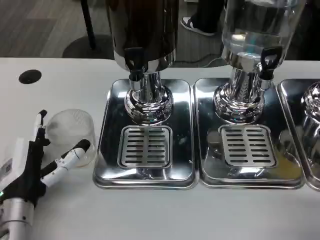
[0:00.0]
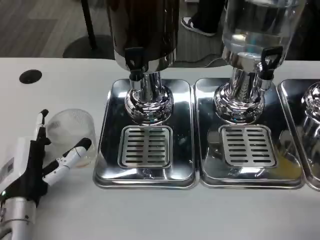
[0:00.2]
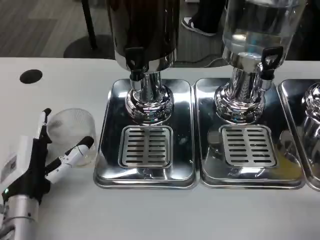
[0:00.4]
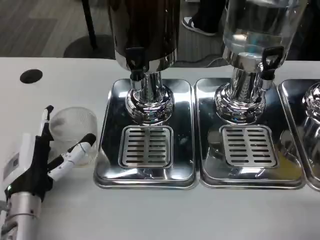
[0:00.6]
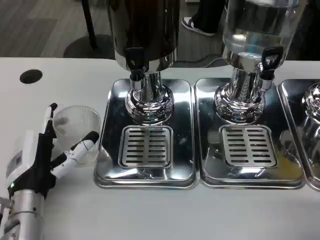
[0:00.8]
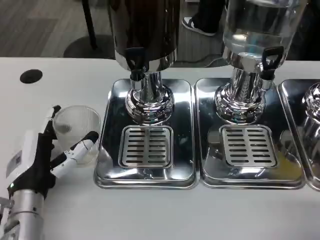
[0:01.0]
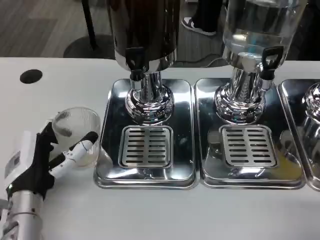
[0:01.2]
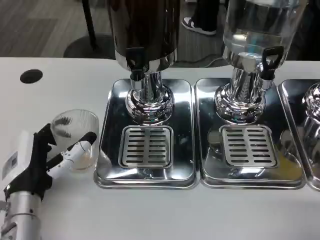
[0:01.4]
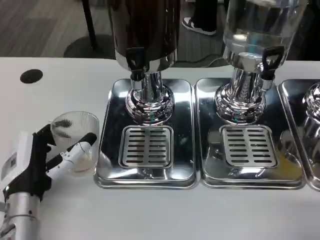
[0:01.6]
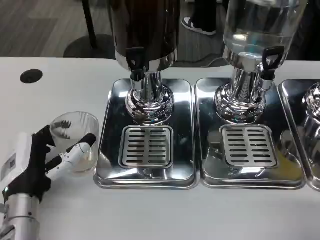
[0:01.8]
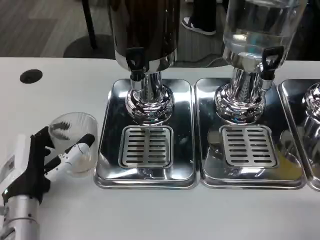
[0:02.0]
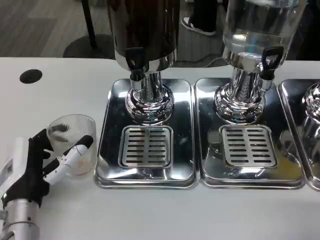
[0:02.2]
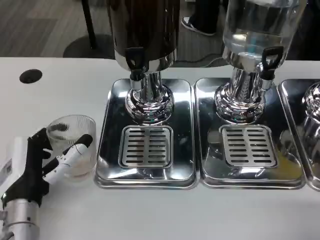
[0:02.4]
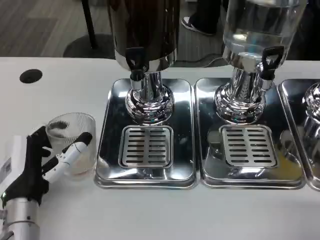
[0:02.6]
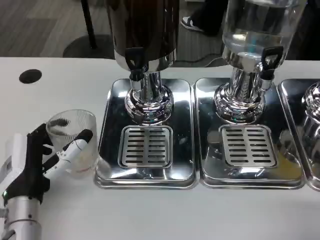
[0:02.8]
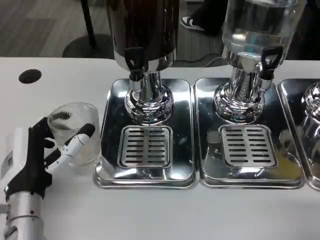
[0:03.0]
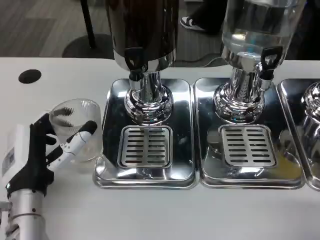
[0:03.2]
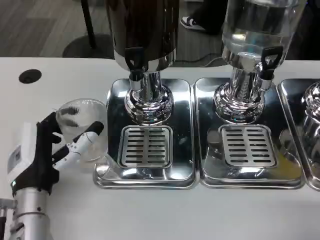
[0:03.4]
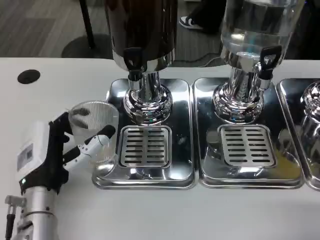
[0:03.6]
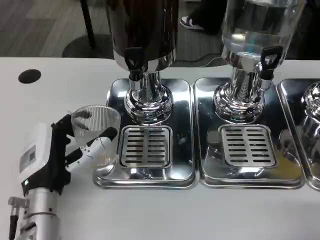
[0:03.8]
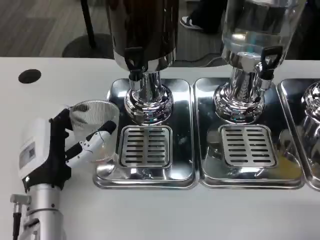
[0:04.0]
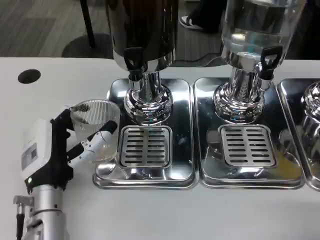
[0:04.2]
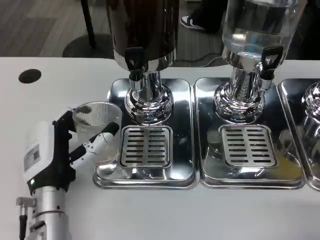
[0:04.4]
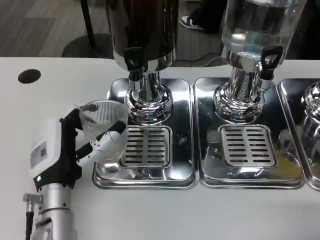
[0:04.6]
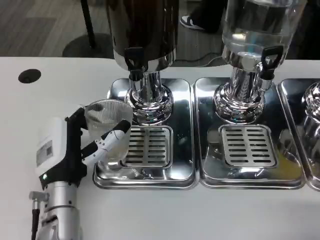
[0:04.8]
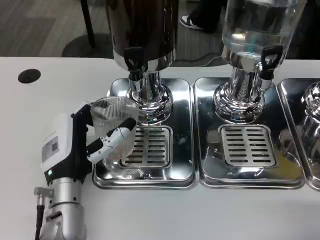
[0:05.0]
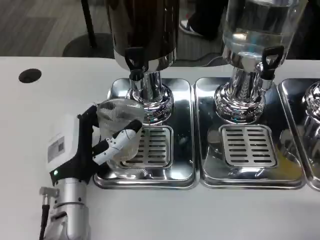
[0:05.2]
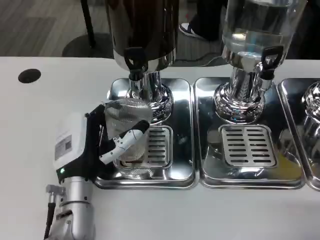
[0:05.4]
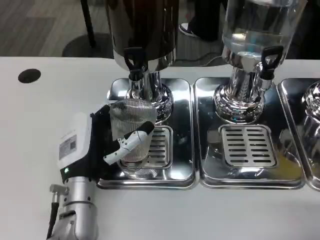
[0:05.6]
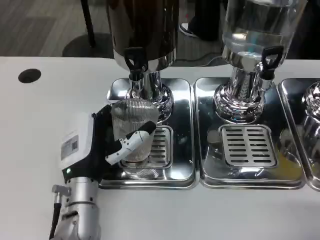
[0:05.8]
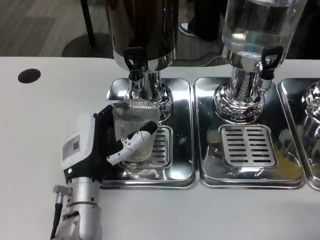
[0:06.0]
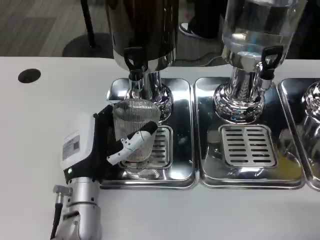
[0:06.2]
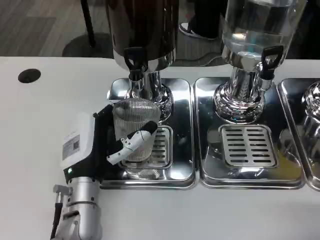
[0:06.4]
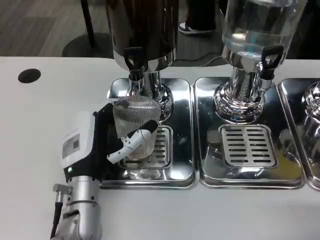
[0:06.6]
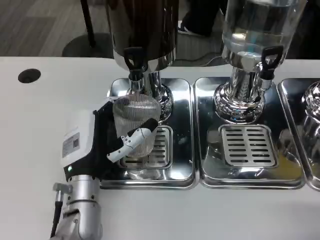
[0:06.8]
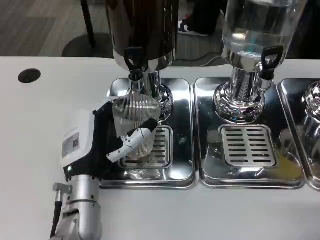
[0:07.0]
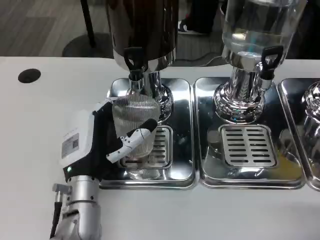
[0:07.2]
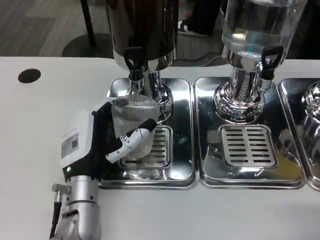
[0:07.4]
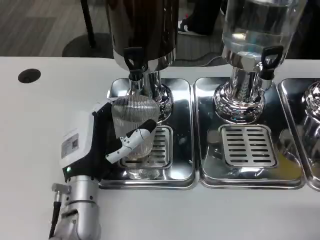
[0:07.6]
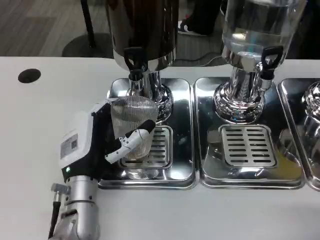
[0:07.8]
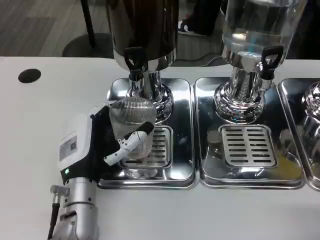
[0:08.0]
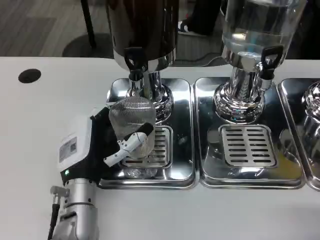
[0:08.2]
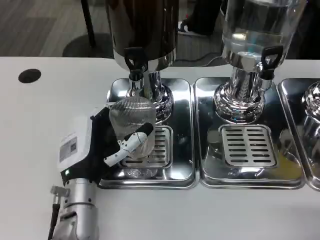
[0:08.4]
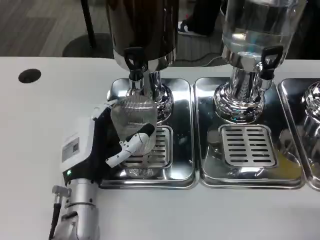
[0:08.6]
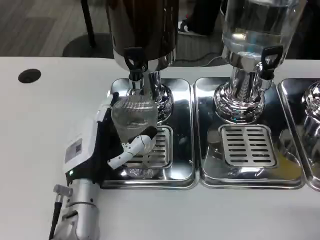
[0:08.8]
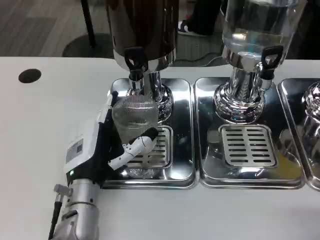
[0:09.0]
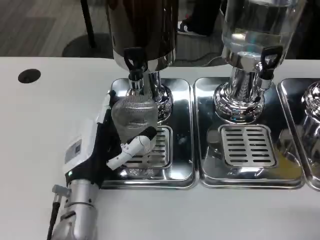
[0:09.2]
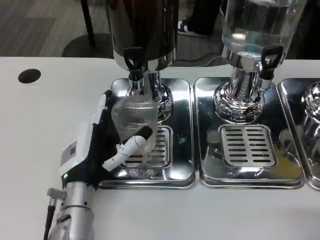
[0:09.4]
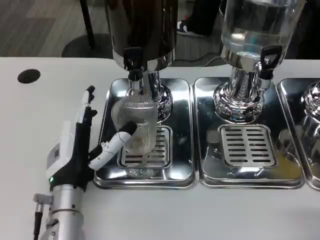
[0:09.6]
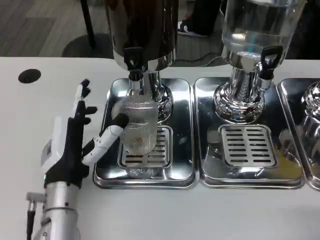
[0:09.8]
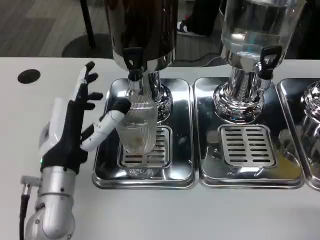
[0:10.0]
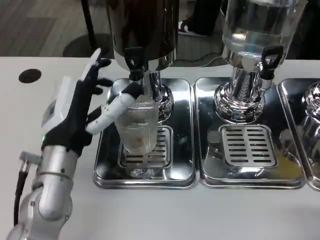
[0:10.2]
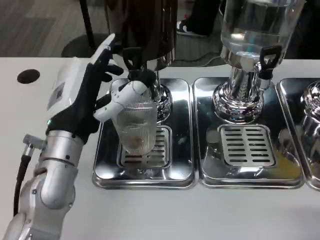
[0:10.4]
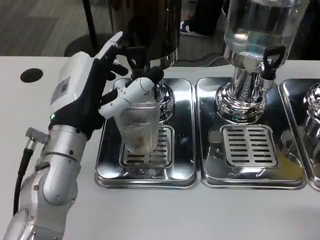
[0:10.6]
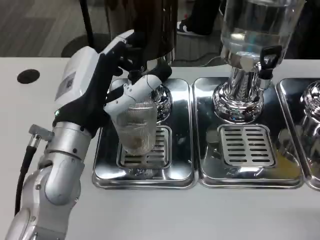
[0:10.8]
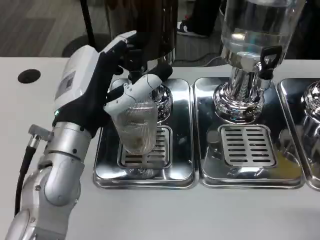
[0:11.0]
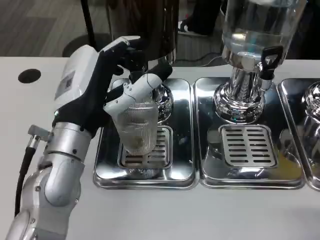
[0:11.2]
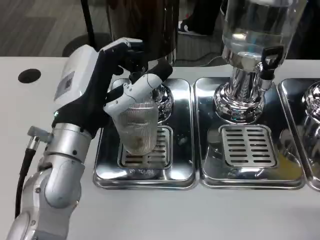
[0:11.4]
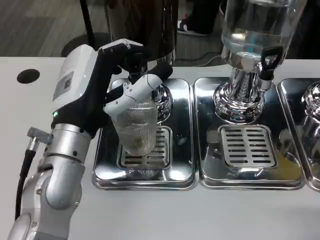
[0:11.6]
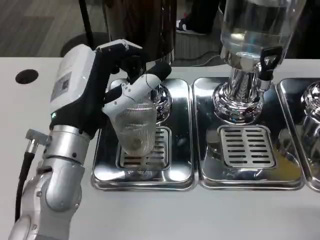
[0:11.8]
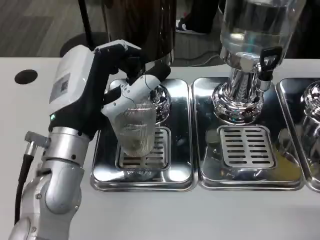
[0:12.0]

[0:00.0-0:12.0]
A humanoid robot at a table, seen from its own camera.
Task of the whole recording: Grasp the cup under the faucet to collect the drink, then remove the cup.
0:00.0 to 0:04.4: The hands make only small movements.
0:04.4 to 0:06.0: The hands make only small movements.
0:06.0 to 0:07.6: Both hands stay about where they are.
0:07.6 to 0:09.0: The hands make only small movements.
0:09.0 to 0:10.4: The left hand is displaced upward by about 10 cm.

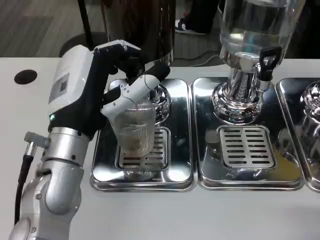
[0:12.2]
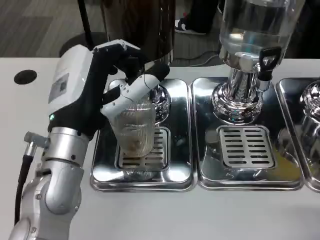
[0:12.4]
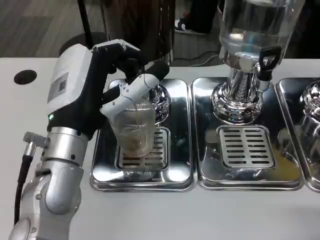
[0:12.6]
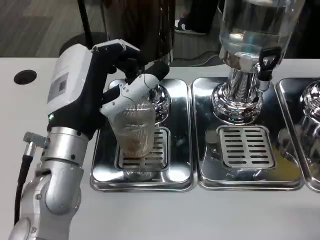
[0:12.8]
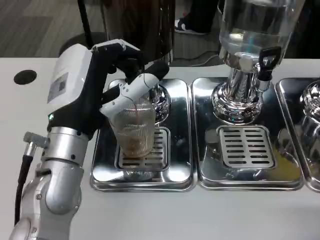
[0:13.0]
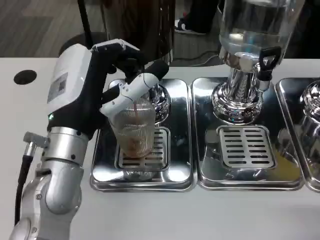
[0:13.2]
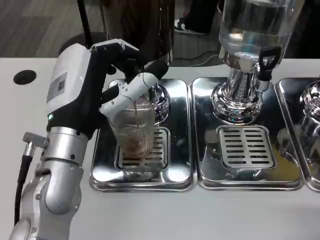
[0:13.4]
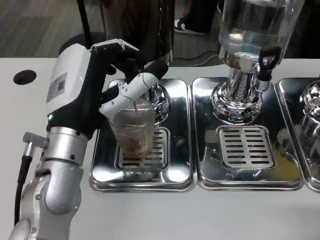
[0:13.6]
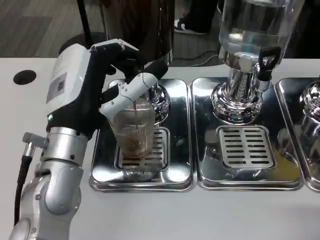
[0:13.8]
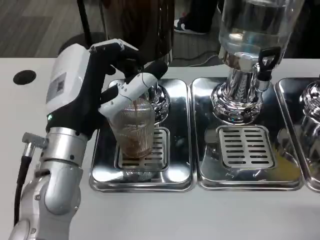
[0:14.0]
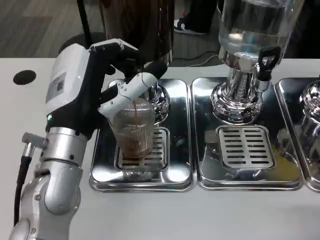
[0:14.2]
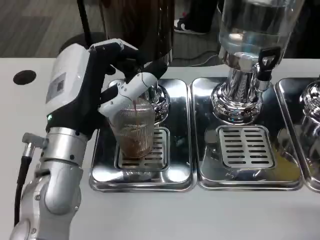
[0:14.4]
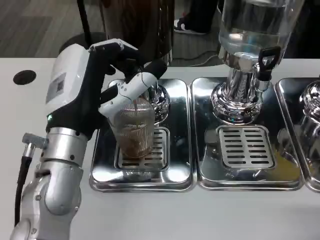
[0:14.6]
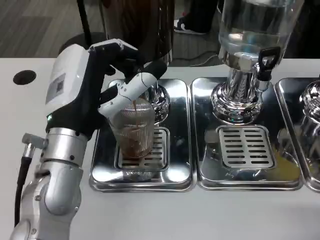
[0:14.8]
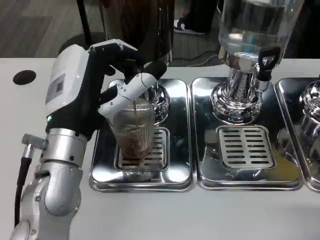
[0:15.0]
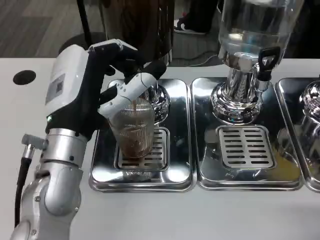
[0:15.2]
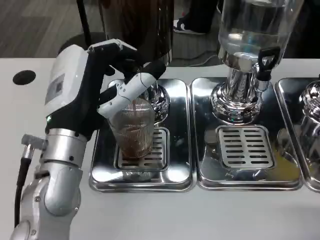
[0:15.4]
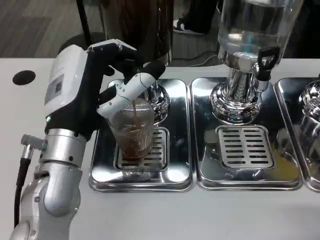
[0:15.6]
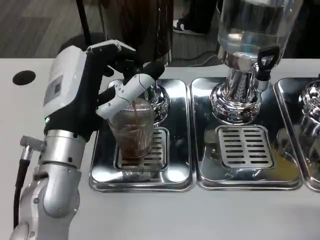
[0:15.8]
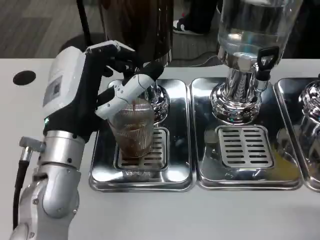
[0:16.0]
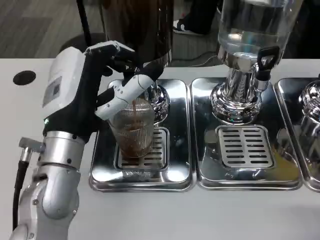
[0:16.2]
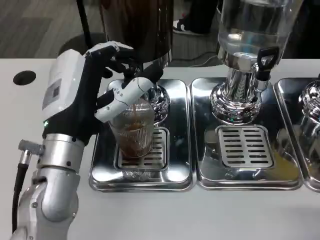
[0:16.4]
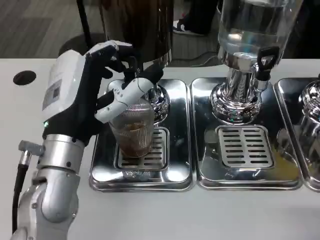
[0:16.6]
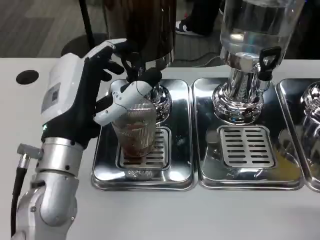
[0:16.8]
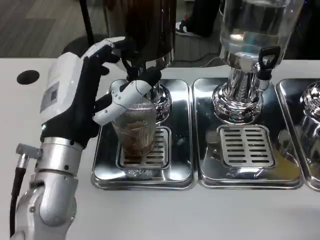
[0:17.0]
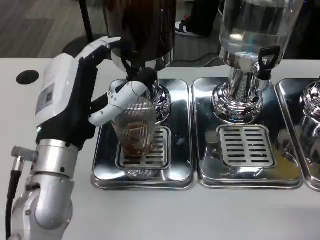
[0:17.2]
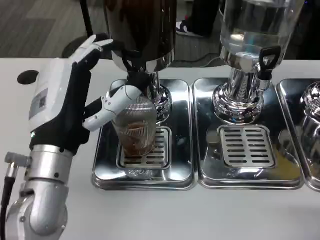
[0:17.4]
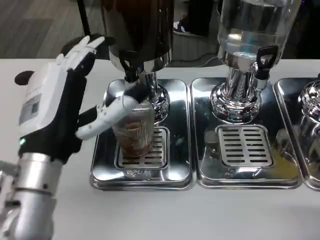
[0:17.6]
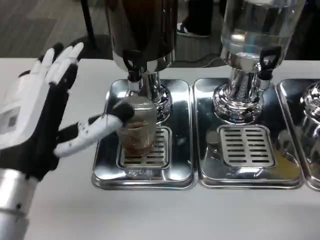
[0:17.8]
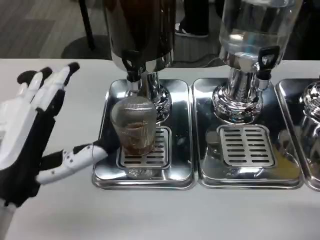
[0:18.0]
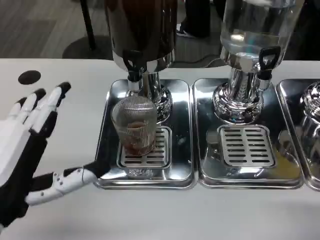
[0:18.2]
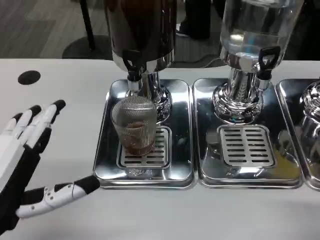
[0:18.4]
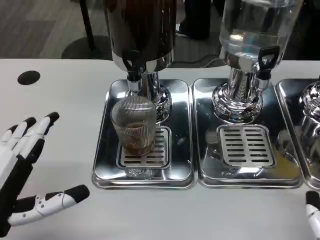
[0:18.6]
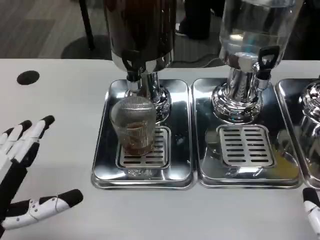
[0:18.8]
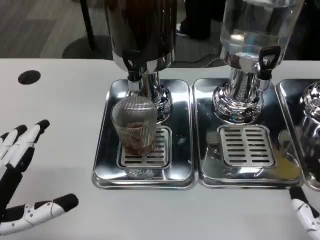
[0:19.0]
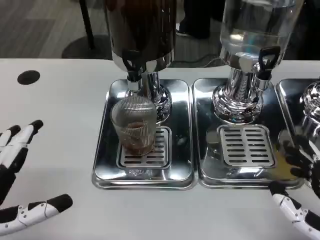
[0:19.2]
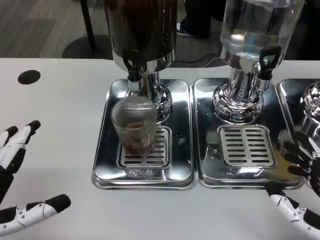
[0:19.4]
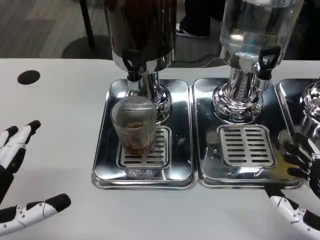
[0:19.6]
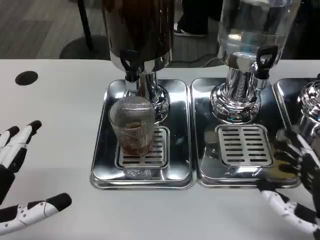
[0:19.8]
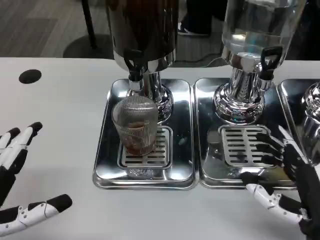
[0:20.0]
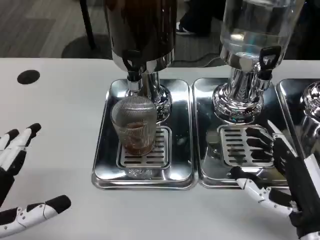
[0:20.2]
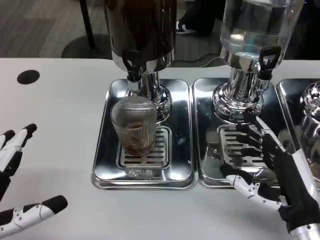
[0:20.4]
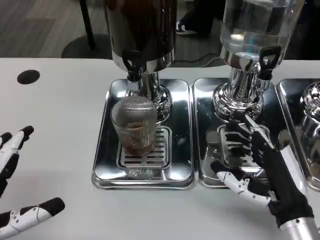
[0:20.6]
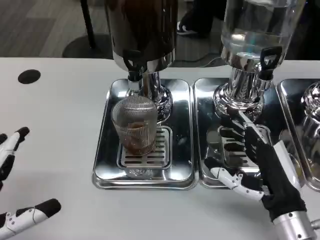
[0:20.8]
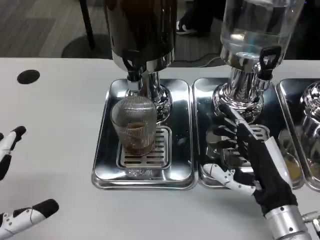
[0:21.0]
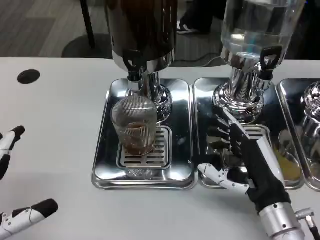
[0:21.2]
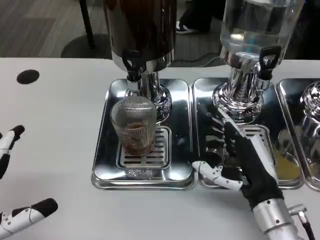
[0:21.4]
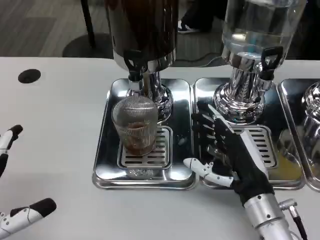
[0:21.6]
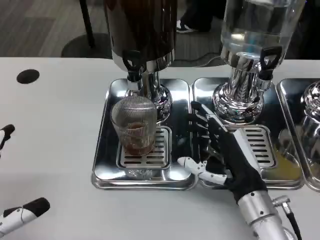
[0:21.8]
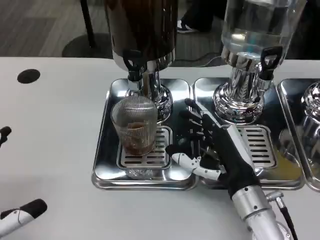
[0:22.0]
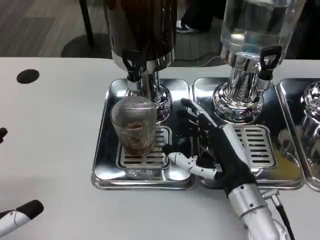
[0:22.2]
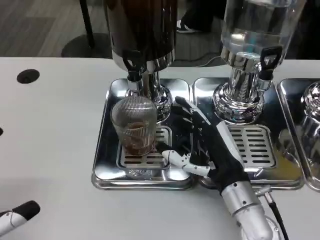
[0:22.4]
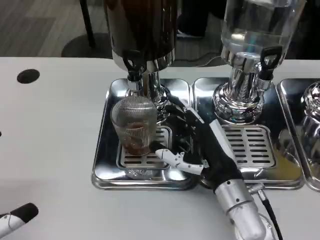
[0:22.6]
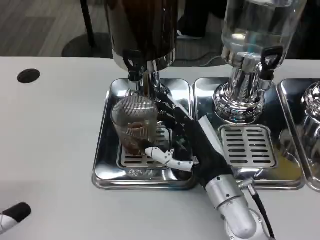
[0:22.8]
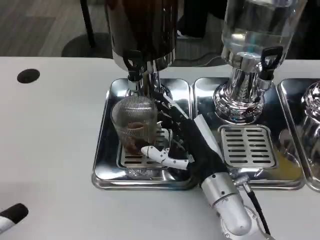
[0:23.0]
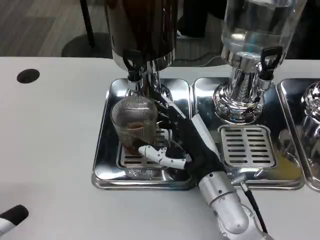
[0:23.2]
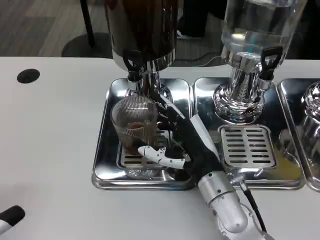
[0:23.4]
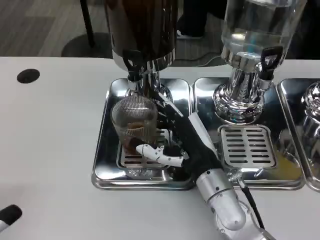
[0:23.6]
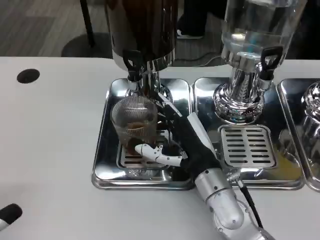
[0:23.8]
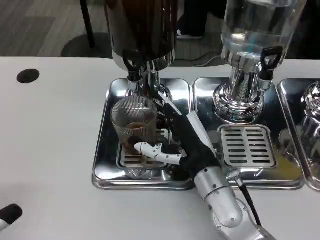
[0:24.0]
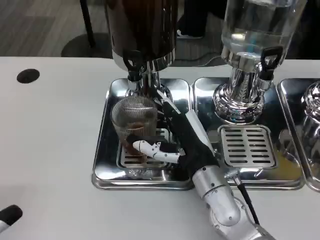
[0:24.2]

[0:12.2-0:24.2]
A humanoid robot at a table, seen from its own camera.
Task of the whole recording: Grasp the cup under the faucet to collect the drink, then remove the cup.
0:12.2 to 0:16.6: The two hands keep their place.
0:16.6 to 0:18.2: The left hand is displaced backward and to the left by roughly 15 cm.
0:18.2 to 0:19.8: The right hand goes roughly 10 cm forward. Meanwhile the left hand is displaced to the left by some 5 cm.
0:19.8 to 0:21.2: The right hand shifts some 10 cm forward and to the left.
0:21.2 to 0:22.6: The right hand is displaced to the left by roughly 5 cm.
0:22.6 to 0:24.2: There are only small adjustments of the hands.
